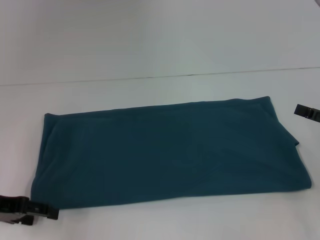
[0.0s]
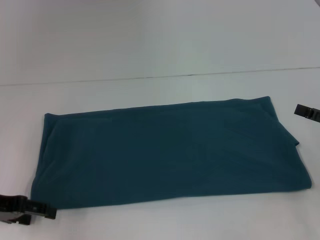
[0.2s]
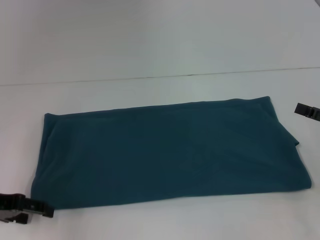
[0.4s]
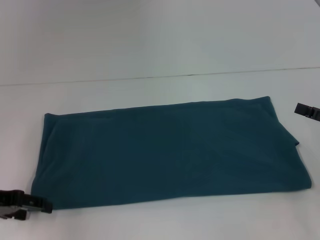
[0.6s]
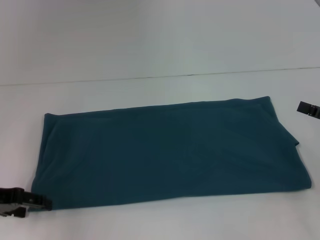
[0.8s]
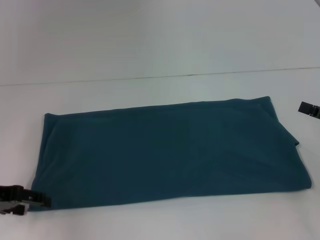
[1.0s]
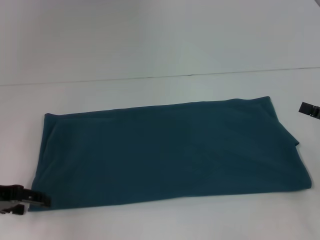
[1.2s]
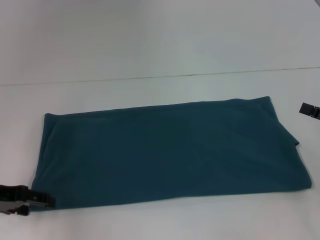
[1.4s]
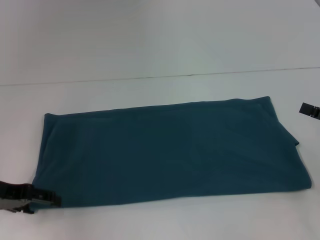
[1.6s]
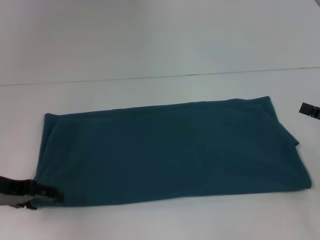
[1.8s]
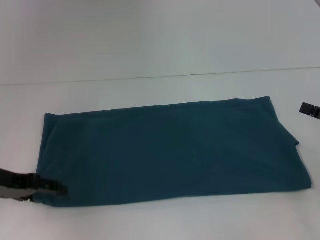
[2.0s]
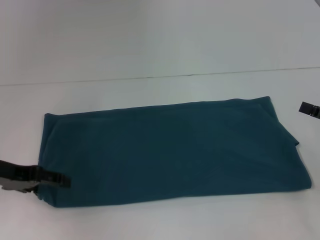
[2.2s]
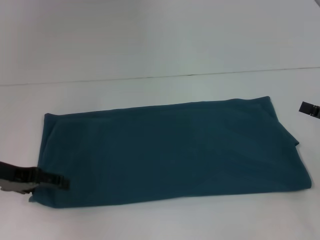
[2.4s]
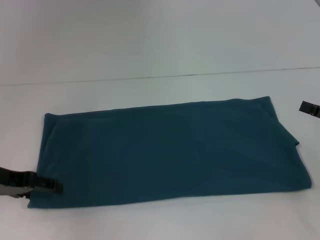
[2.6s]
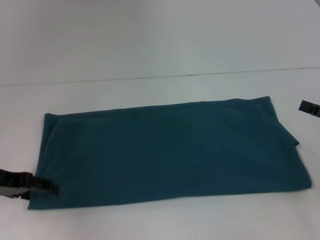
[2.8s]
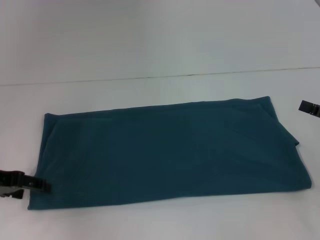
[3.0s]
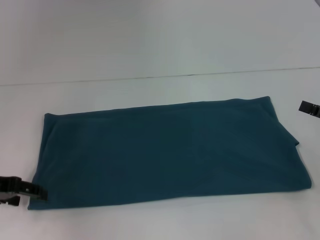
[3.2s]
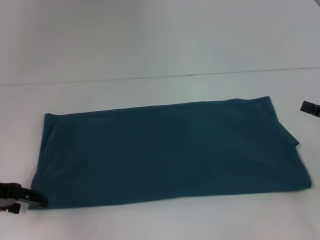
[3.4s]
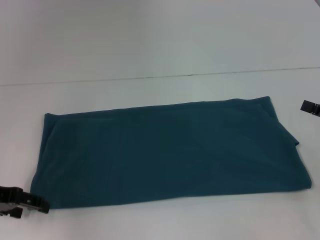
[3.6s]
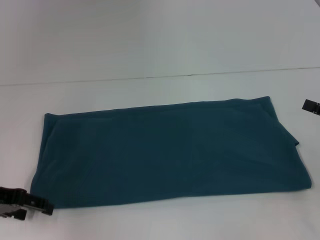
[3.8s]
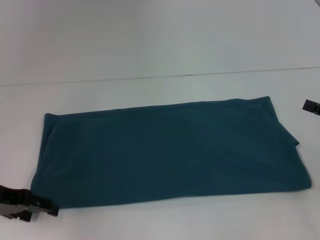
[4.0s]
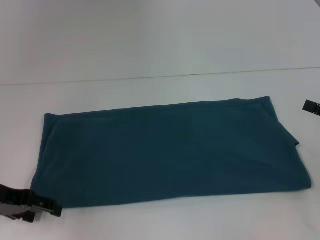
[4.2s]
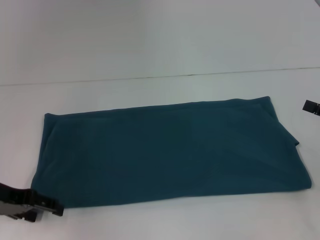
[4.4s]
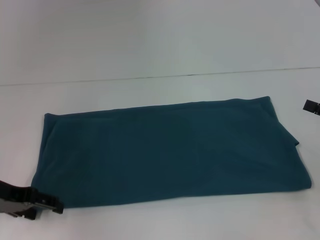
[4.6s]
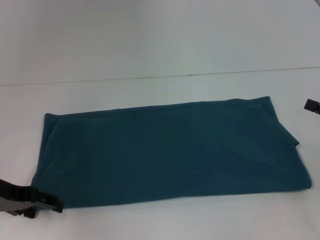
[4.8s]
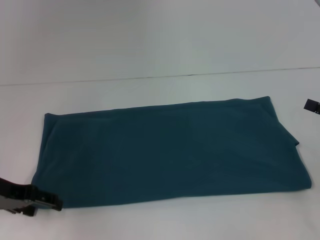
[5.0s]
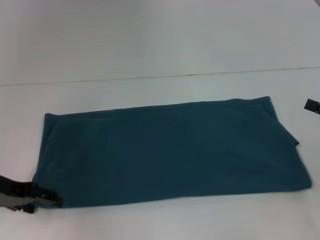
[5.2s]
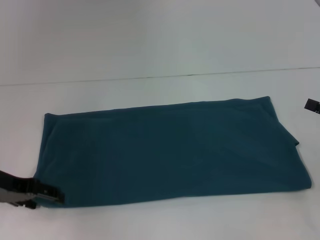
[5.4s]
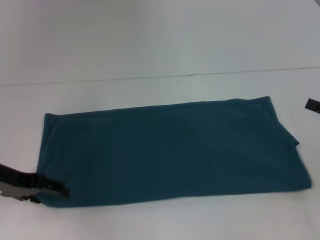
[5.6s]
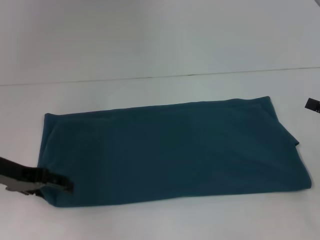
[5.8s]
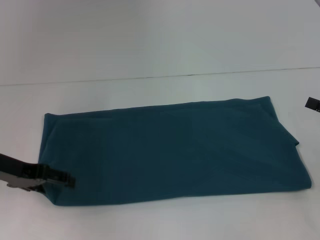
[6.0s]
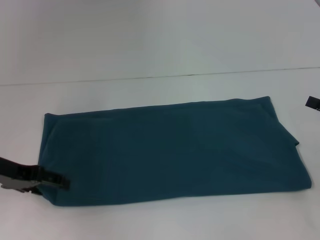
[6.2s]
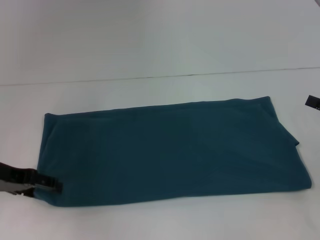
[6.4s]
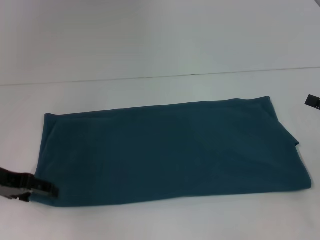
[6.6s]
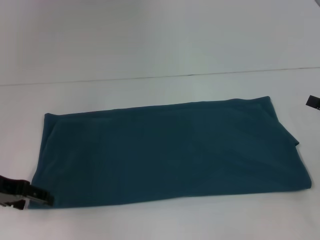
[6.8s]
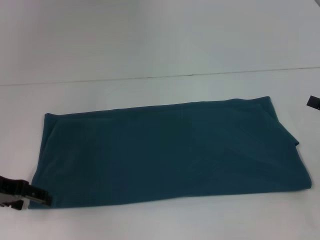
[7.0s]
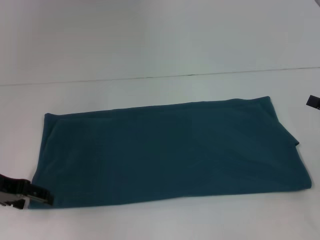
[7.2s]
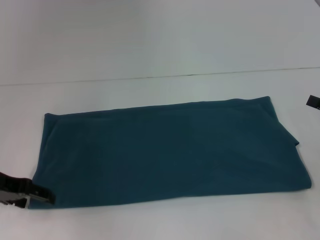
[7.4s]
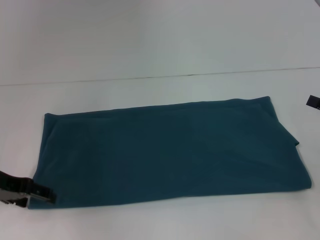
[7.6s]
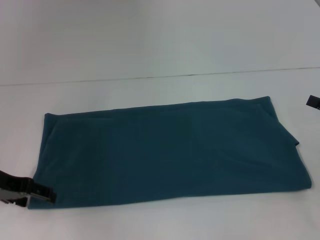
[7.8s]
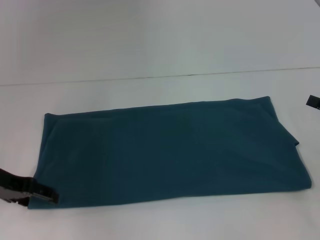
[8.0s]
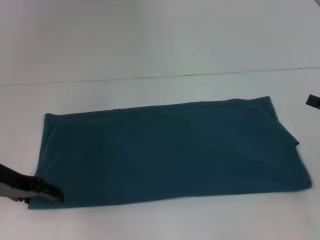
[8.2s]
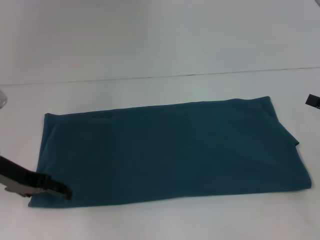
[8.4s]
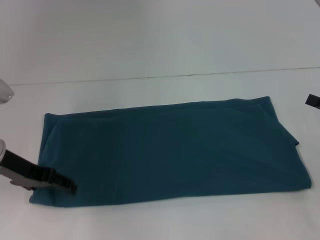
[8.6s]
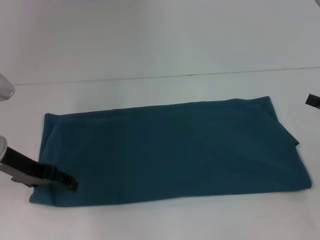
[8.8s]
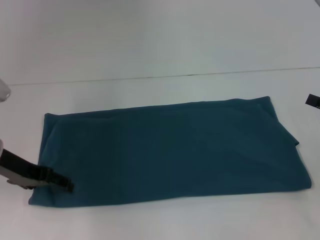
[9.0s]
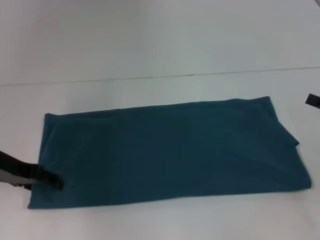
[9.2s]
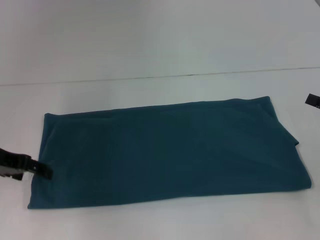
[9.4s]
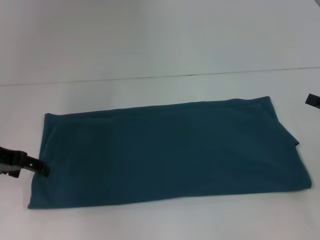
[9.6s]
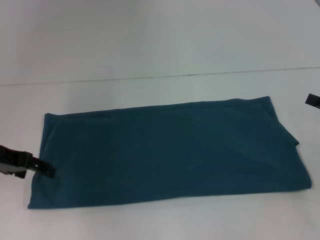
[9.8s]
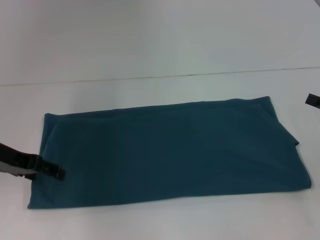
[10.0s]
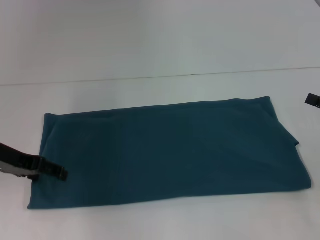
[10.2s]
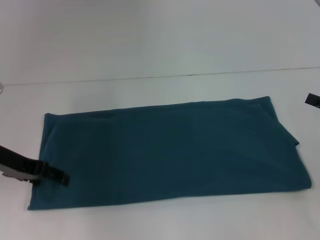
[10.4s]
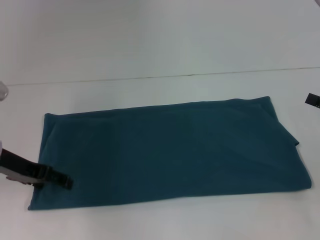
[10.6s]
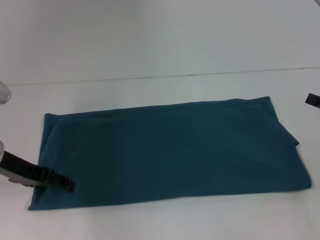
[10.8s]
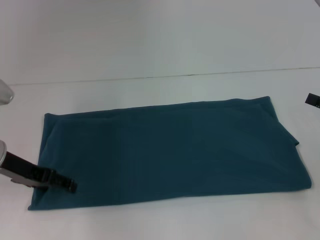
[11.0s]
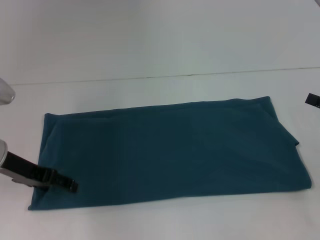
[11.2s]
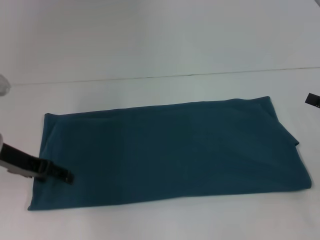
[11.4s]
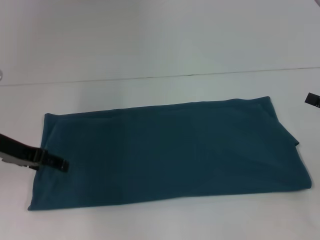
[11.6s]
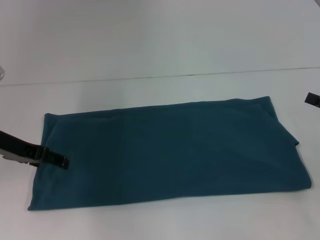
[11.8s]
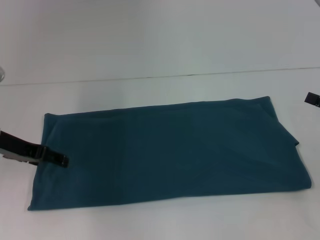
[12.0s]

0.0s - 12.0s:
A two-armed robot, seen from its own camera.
0.0s - 7.6s: The grippers stay close to where they were, moving slightly.
7.6s - 12.0s: The grippers move only a little.

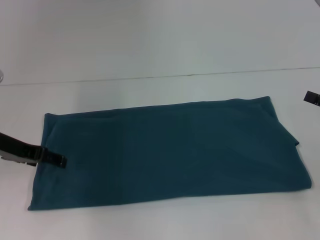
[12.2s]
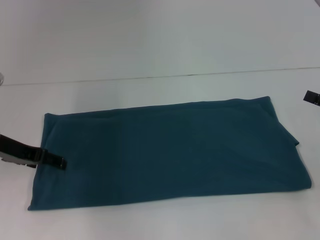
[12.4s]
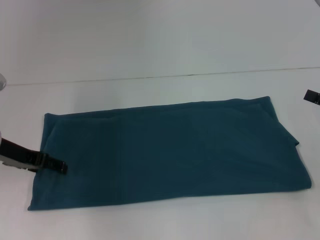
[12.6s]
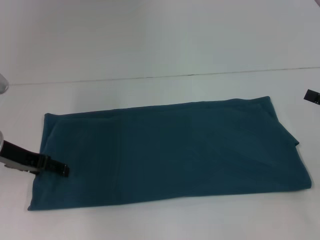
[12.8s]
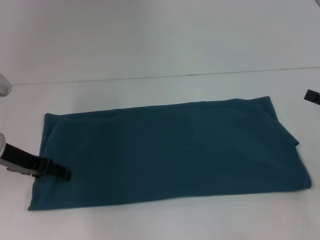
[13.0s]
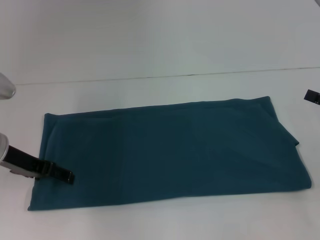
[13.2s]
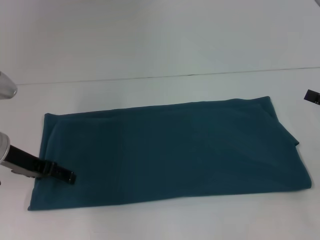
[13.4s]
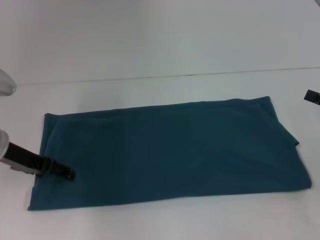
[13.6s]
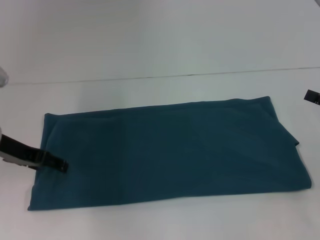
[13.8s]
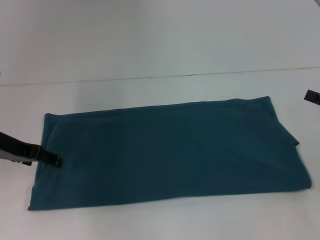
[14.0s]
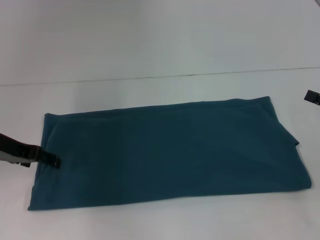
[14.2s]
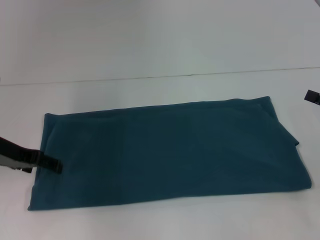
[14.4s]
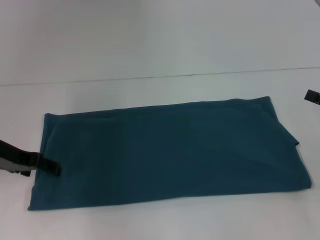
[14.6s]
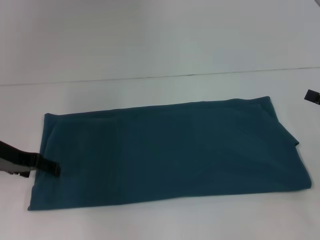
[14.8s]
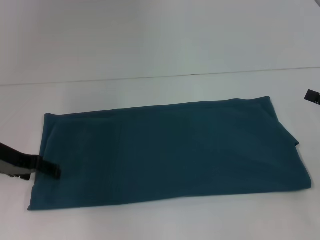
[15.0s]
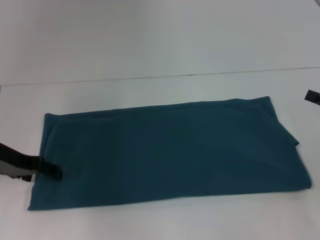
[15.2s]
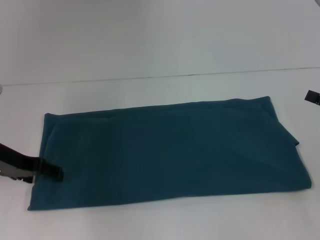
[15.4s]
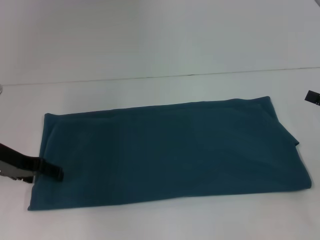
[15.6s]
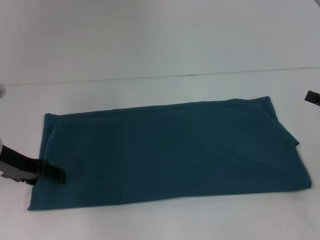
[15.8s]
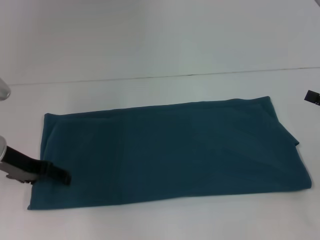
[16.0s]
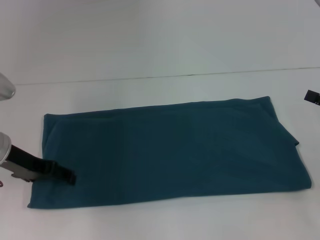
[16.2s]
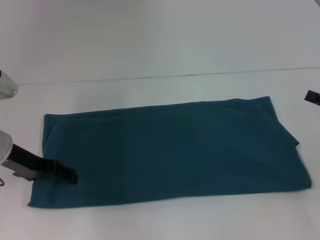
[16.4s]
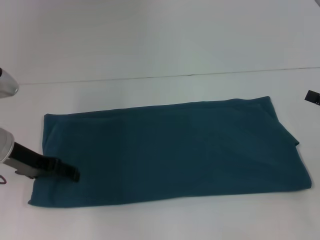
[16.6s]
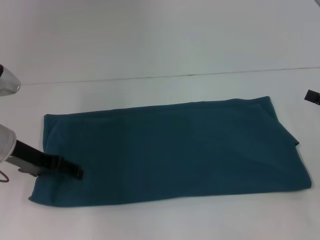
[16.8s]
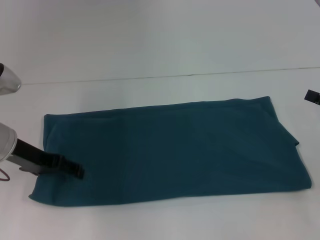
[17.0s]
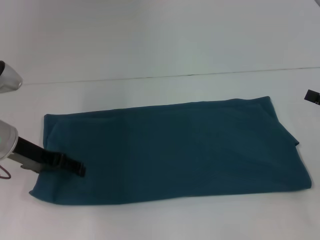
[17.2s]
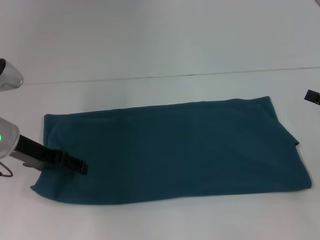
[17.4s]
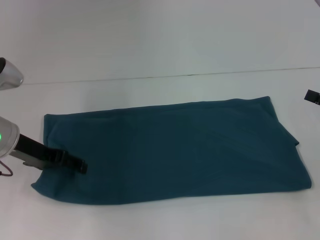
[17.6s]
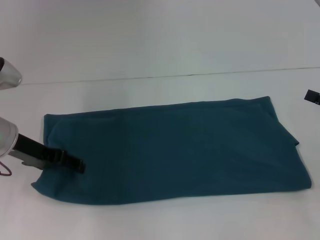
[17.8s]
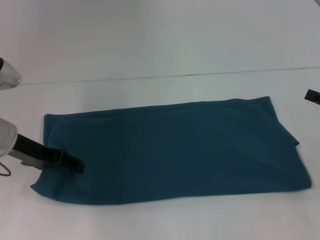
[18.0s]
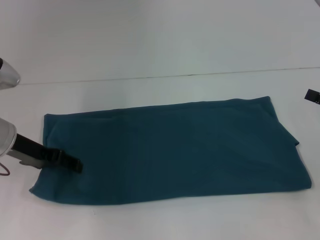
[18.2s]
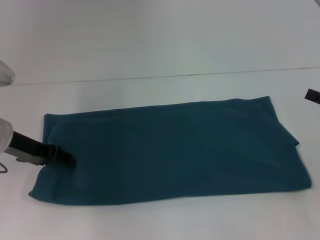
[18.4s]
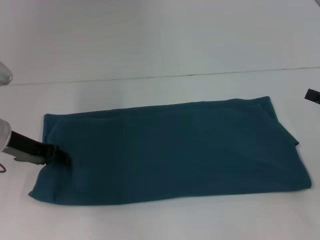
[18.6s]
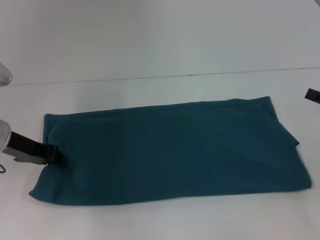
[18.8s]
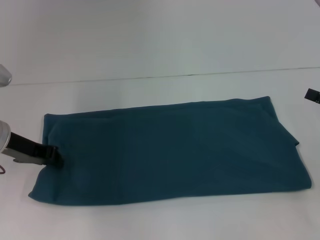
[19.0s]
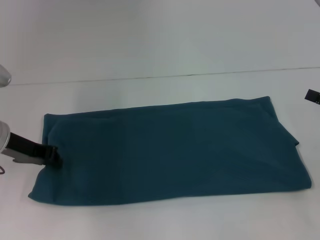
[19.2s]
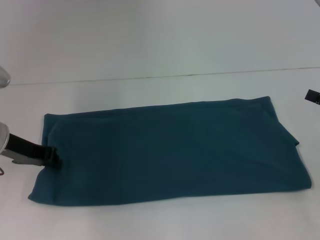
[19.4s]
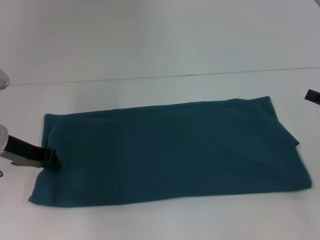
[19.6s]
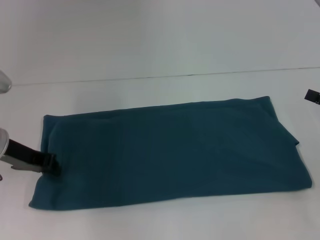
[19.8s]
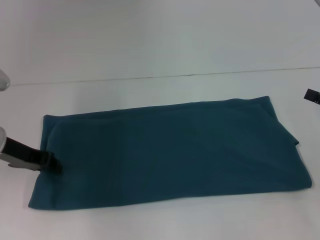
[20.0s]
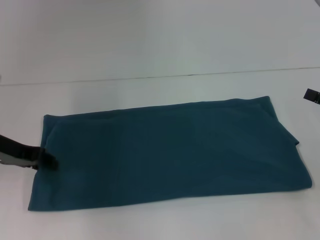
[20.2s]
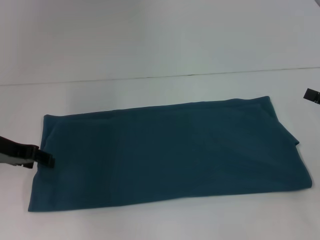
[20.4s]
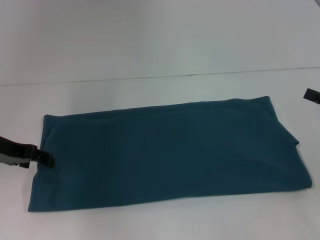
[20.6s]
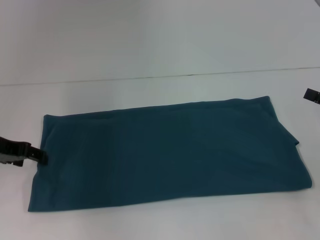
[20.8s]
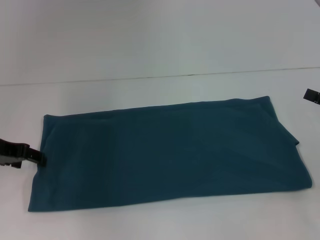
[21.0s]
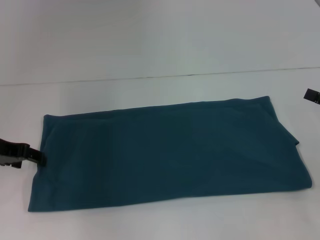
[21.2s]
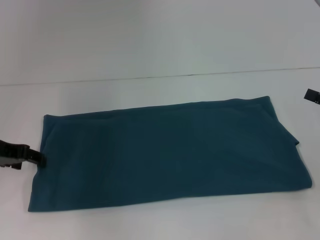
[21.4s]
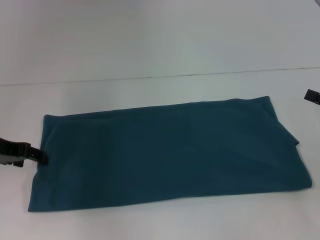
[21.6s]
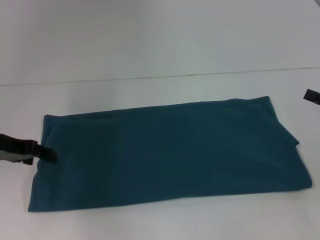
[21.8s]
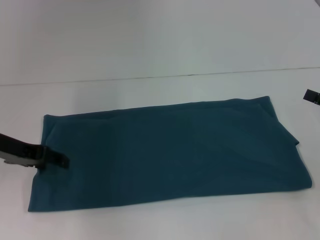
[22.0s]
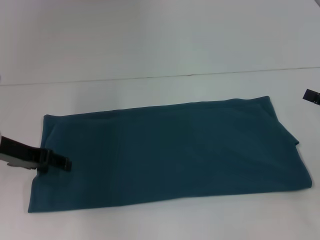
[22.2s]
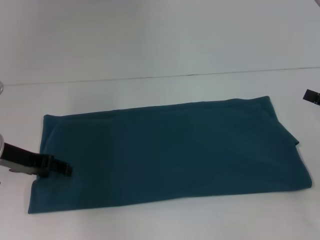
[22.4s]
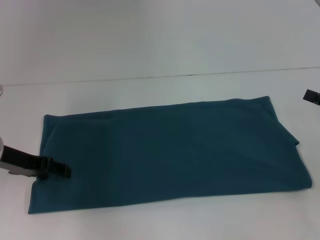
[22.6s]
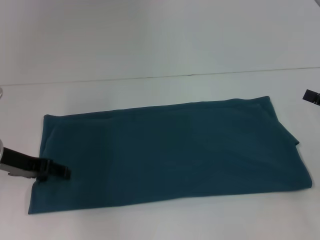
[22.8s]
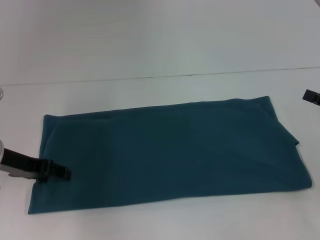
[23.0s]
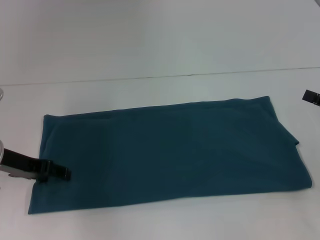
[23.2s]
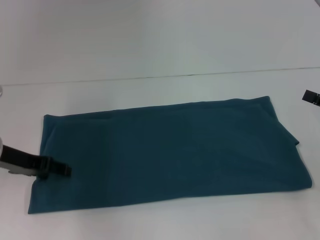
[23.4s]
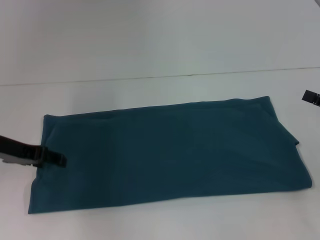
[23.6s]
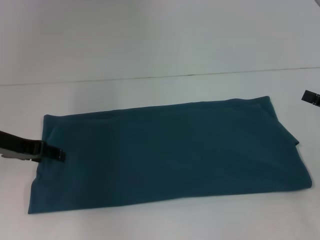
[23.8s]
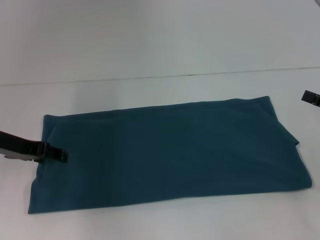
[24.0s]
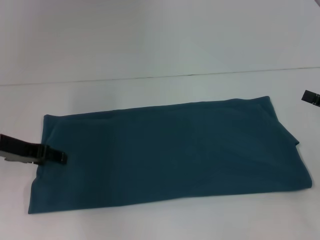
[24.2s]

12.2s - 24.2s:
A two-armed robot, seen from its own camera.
13.8s - 16.6s: The grippers move only a little.
16.6s - 18.2s: Both grippers stay about where they are.
18.2s - 19.8s: The left gripper closes its fingers.
19.8s - 21.2s: The left gripper opens up.
21.2s - 24.2s: The grippers stay close to where they were, moving slightly.
